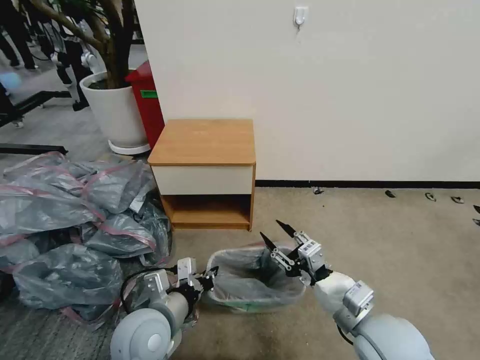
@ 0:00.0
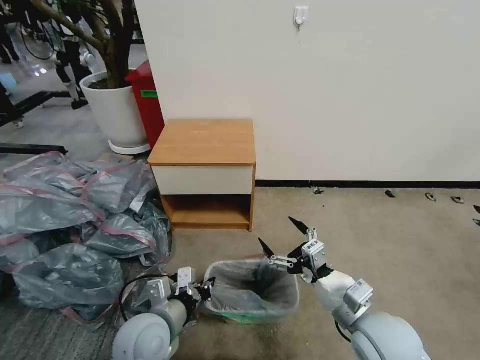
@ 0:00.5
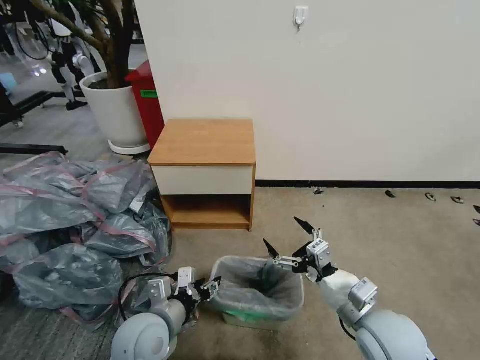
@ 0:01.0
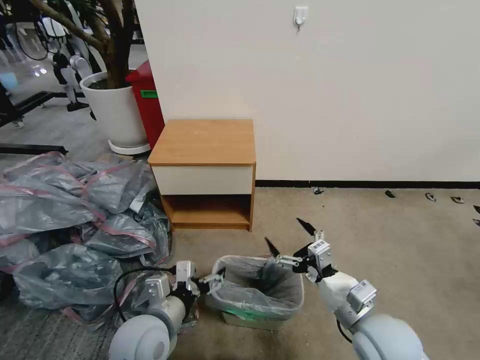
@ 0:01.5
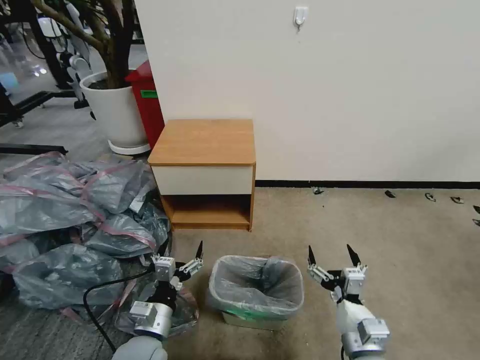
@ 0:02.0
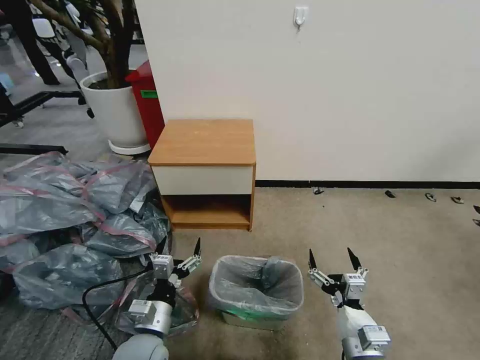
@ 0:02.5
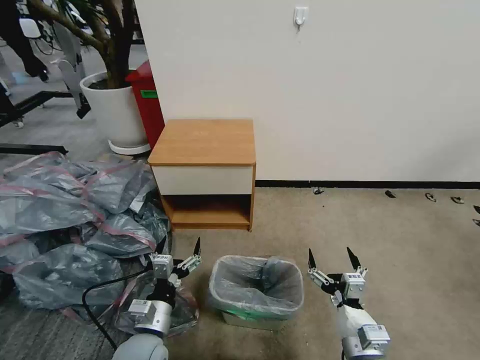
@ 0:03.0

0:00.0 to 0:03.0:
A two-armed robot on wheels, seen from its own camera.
Task of the whole recording: Pick up the garbage bag from the table and place it over the trash can.
0:00.0 to 0:01.5: The right gripper opens. Meanwhile the left gripper opens up.
0:01.5 to 0:03.0: The right gripper heads downward and backward, covering some 10 cm; the left gripper heads downward, covering some 5 cm.

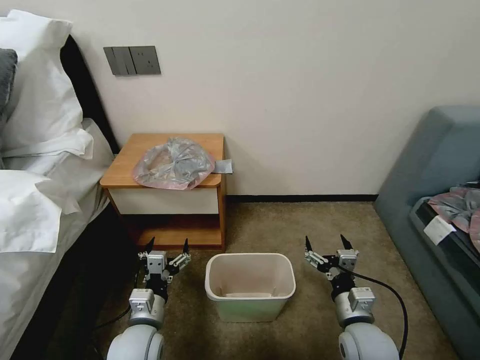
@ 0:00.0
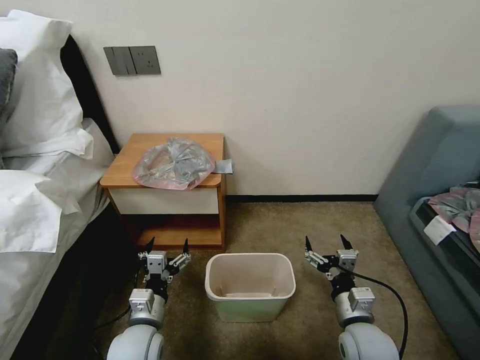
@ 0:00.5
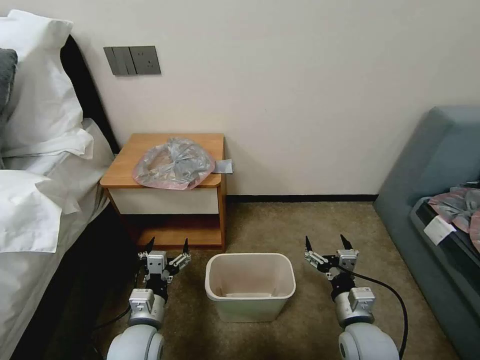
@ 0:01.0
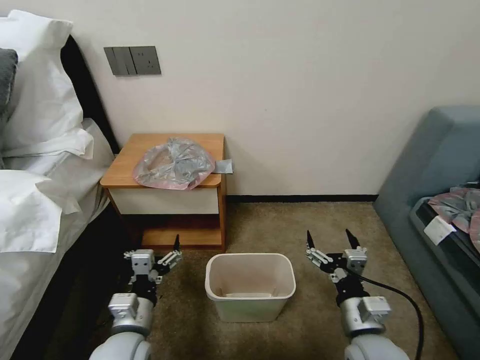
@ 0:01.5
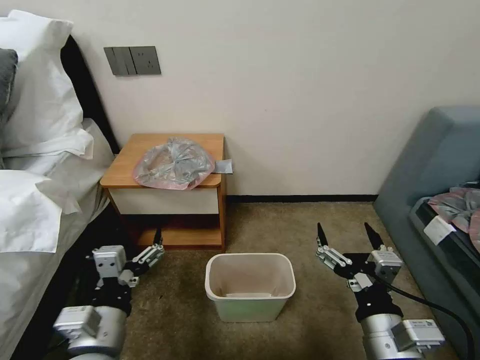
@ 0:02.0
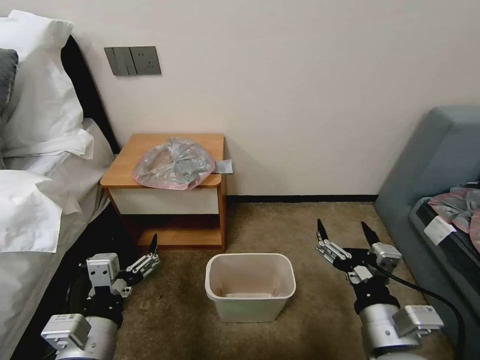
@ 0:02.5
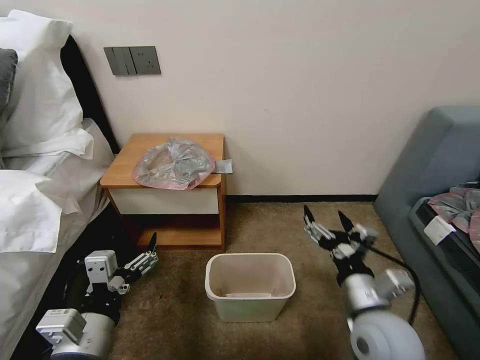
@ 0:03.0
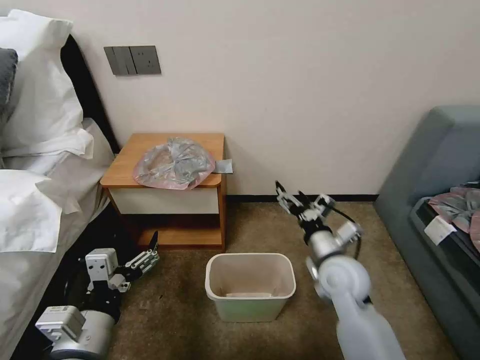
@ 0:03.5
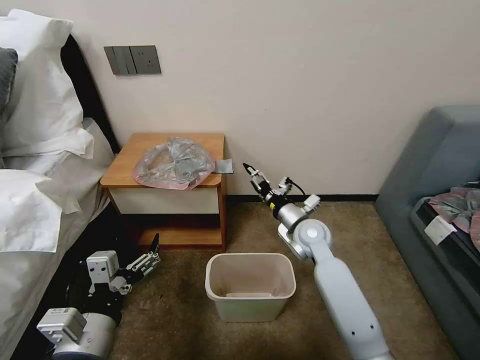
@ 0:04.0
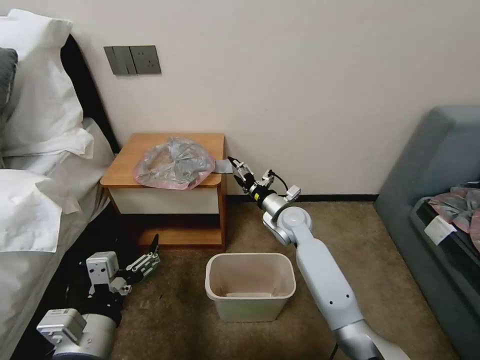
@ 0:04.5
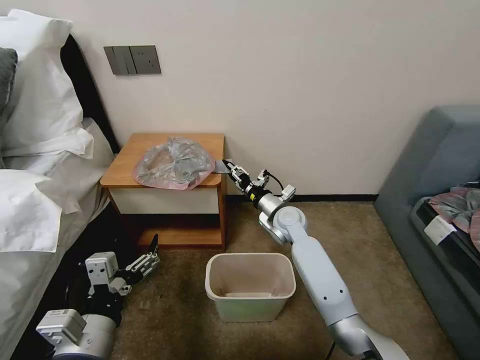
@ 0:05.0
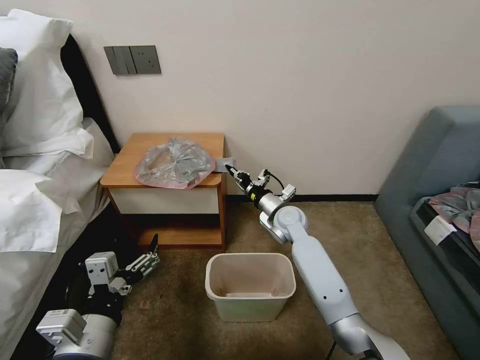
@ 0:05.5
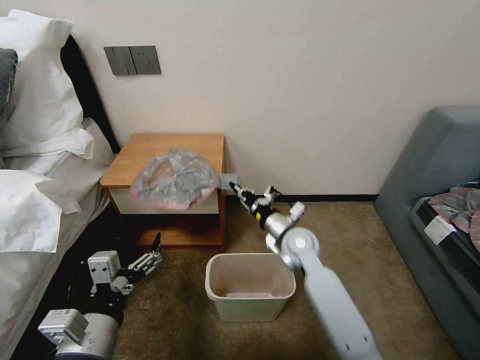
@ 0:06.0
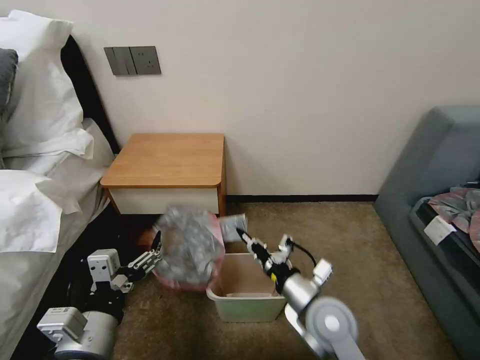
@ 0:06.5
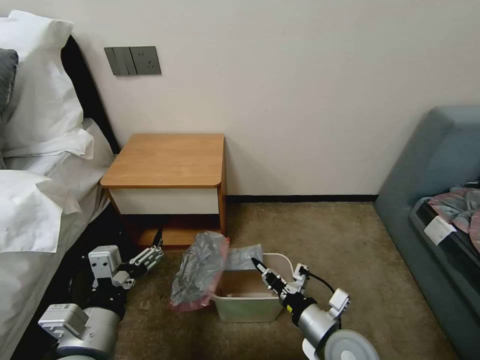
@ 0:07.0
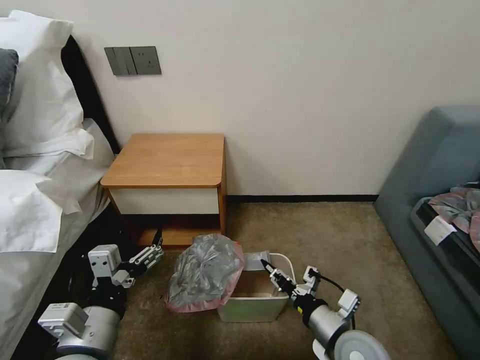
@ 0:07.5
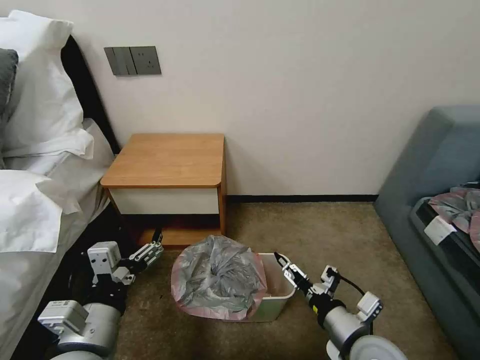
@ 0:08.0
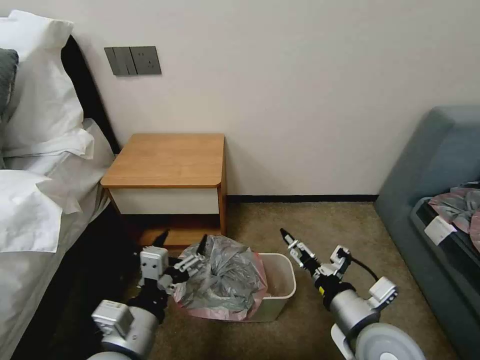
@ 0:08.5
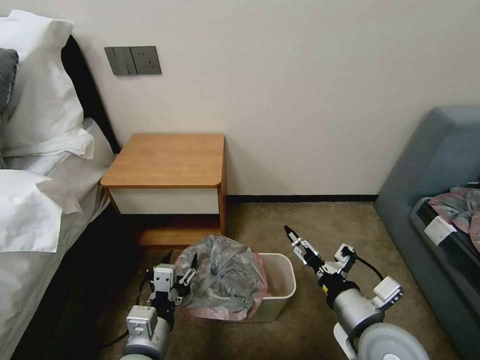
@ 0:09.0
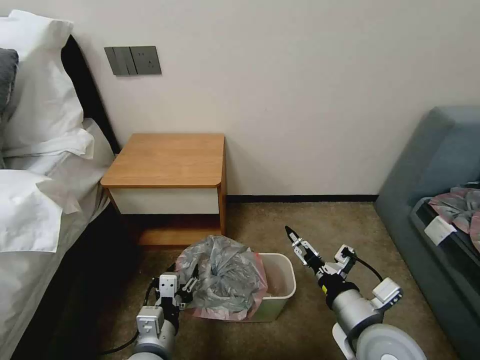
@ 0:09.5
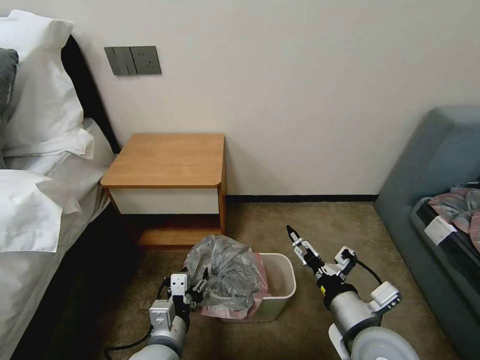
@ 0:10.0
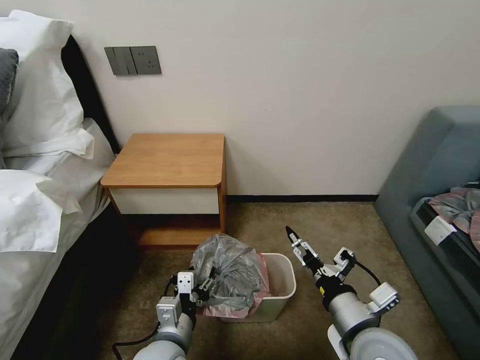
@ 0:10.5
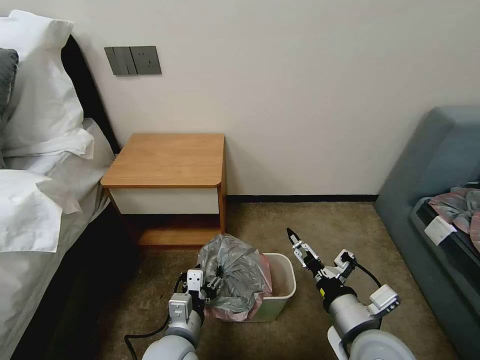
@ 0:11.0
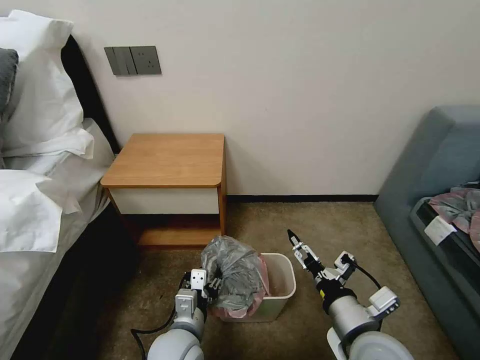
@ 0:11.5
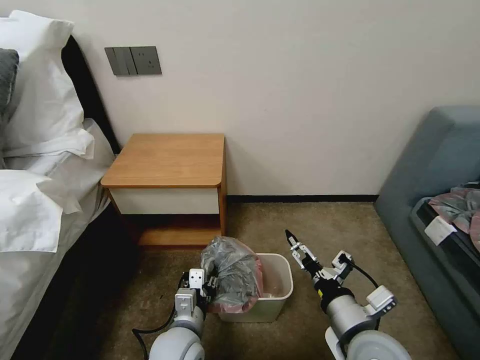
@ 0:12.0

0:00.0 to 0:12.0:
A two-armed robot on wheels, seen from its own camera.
Task of the whole recording: Pick up the garbage bag from the table and place it over the trash can.
0:02.0 to 0:04.0: The right gripper is displaced forward by roughly 30 cm.
0:04.0 to 0:06.0: The right gripper travels forward and back again, about 5 cm each way, and closes its fingers.
0:06.0 to 0:08.0: The right gripper moves backward, roughly 25 cm, and opens up.
0:08.0 to 0:10.0: The left gripper goes roughly 15 cm downward and to the right, and closes.
0:10.0 to 0:12.0: The left gripper ends up some 5 cm from where it was.

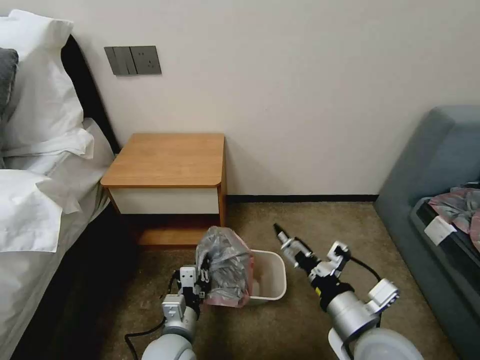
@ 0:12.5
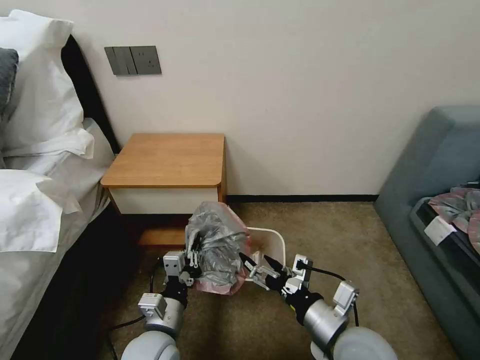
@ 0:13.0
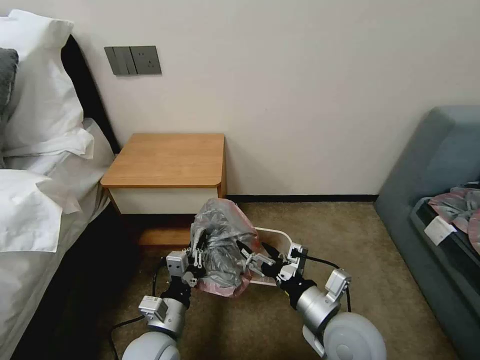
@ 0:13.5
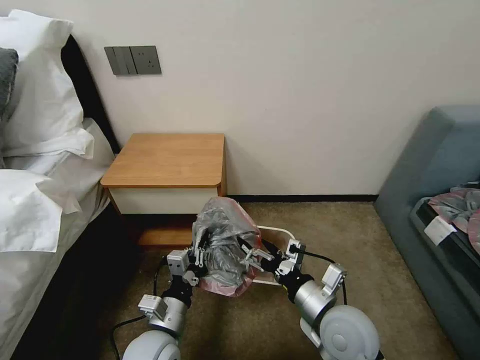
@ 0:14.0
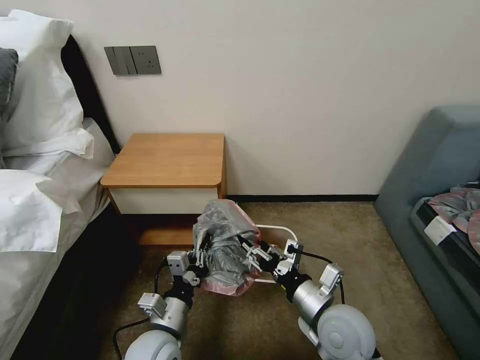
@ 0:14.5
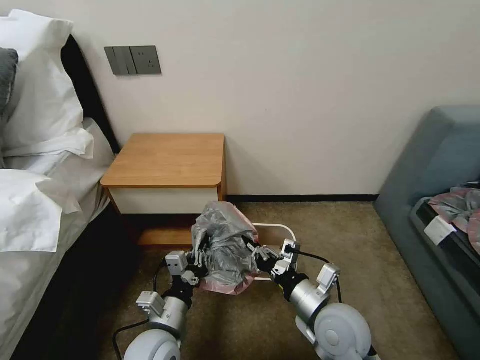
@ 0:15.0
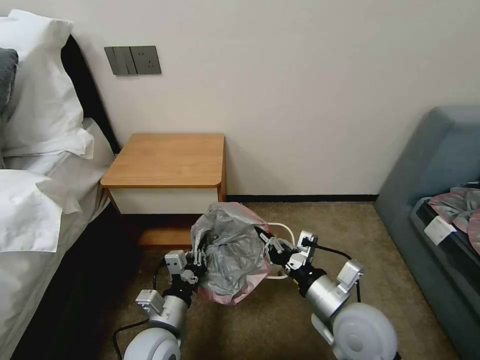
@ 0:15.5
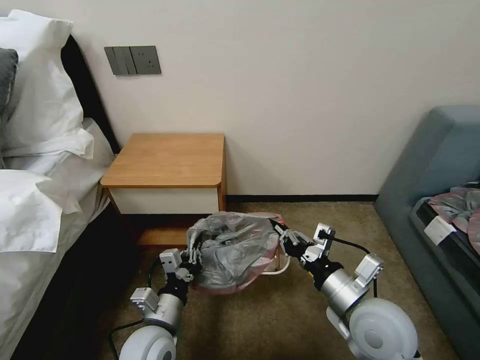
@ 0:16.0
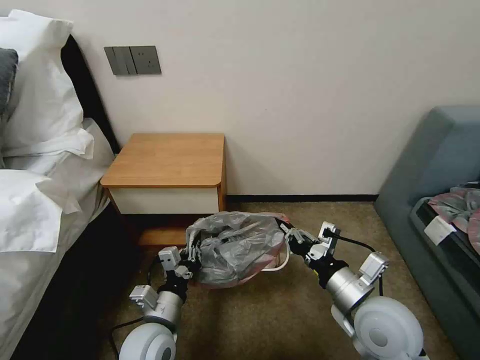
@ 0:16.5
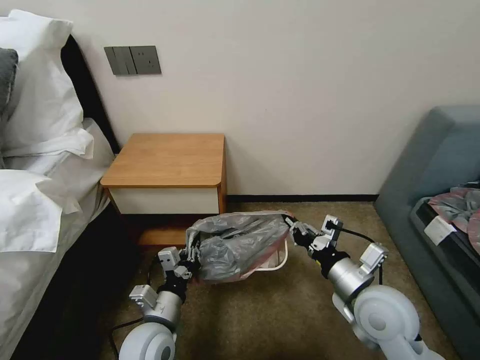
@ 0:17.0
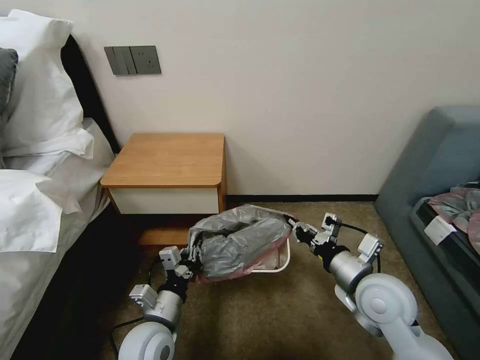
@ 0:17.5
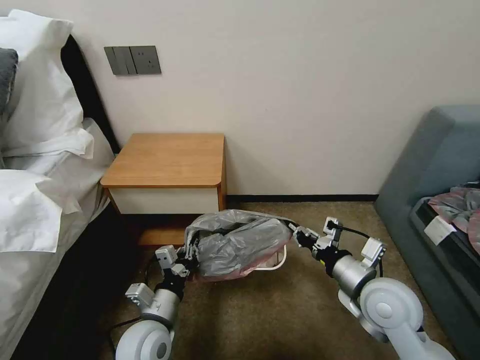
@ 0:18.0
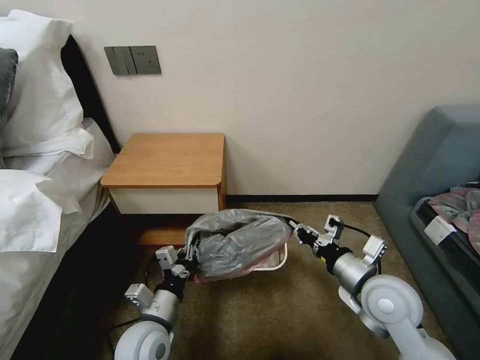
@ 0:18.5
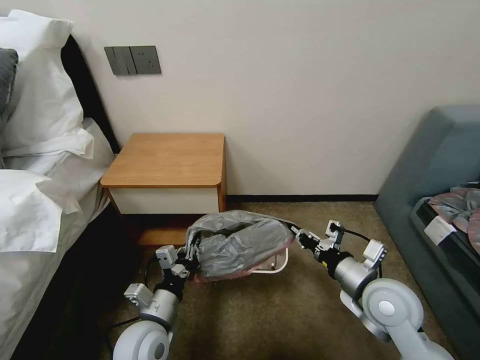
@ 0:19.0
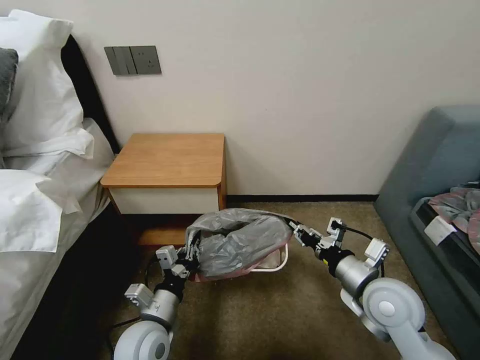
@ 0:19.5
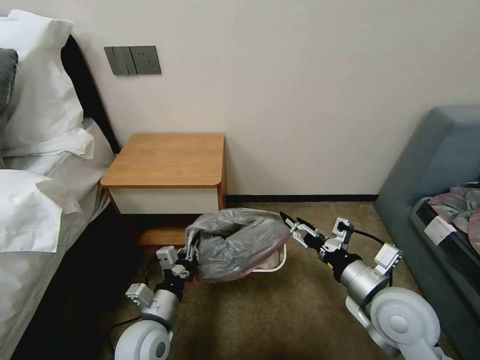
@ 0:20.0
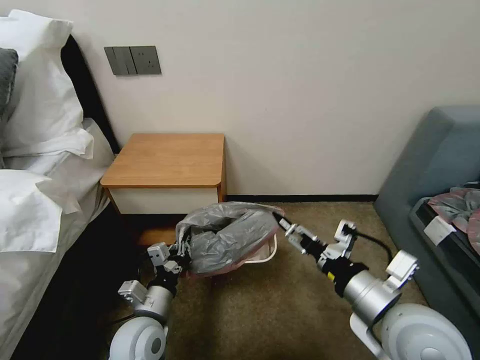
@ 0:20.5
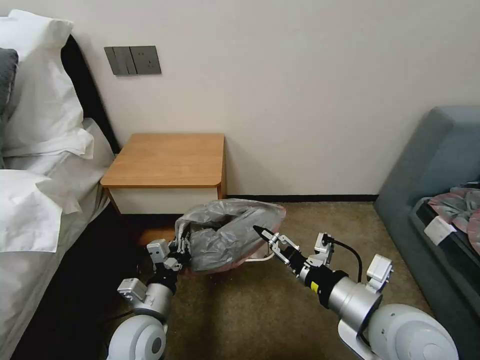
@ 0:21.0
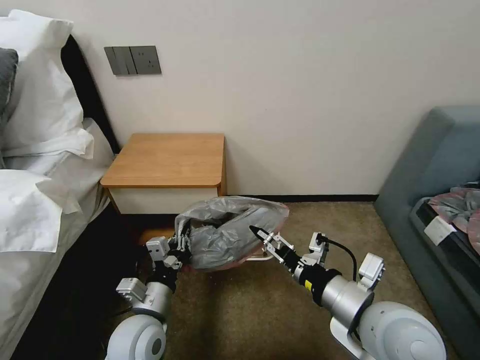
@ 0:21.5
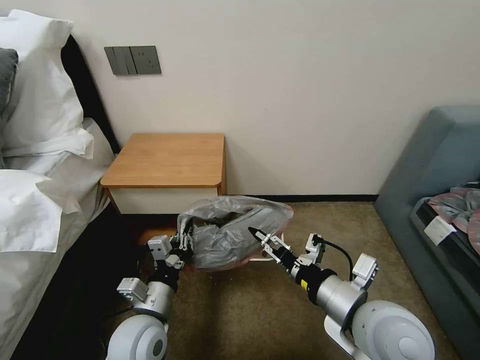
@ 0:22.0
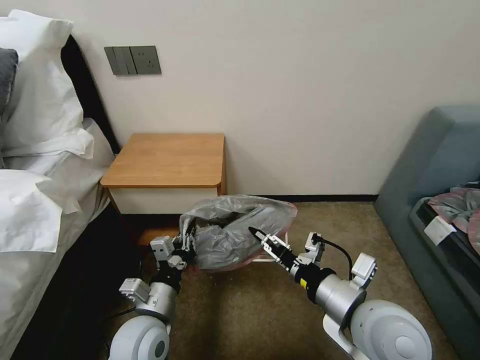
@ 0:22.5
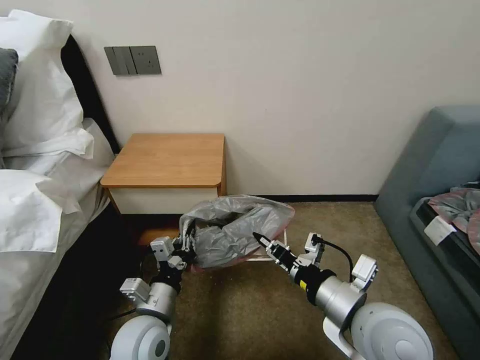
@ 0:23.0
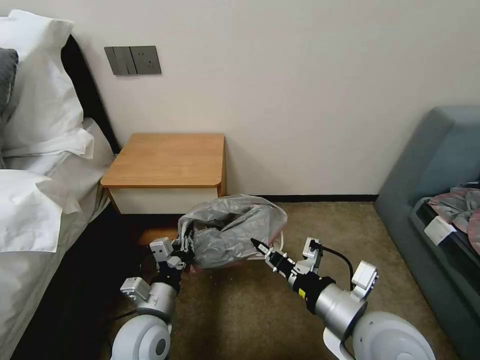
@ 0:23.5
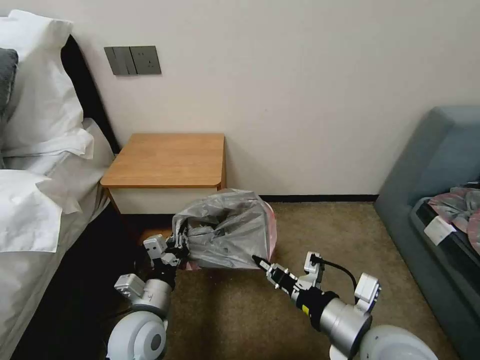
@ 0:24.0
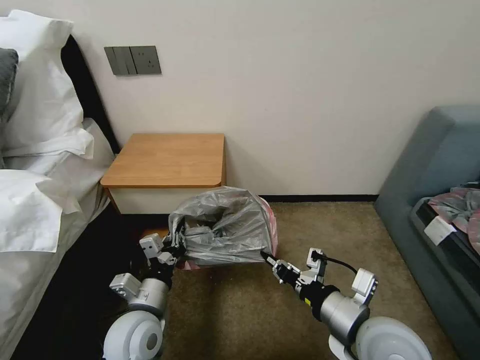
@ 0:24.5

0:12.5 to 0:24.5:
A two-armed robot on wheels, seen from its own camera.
Task of the whole recording: Pick up the garbage bag from the table and place it over the trash can.
0:12.5 to 0:14.5: The right gripper moves forward and downward, roughly 10 cm, and closes up.
0:14.5 to 0:16.5: The right gripper shifts roughly 5 cm upward, and closes its fingers.
0:16.5 to 0:18.5: The right gripper moves some 5 cm.
0:18.5 to 0:20.5: The right gripper moves backward and upward, approximately 10 cm, and opens.
0:20.5 to 0:22.5: The right gripper closes.
0:22.5 to 0:24.5: The right gripper closes up.
